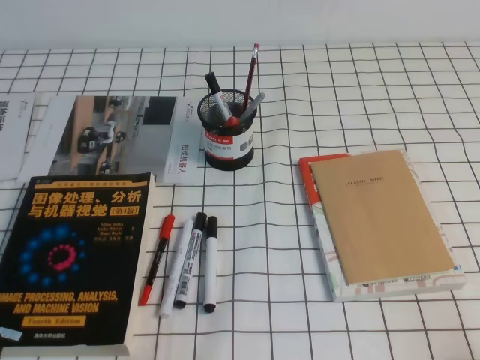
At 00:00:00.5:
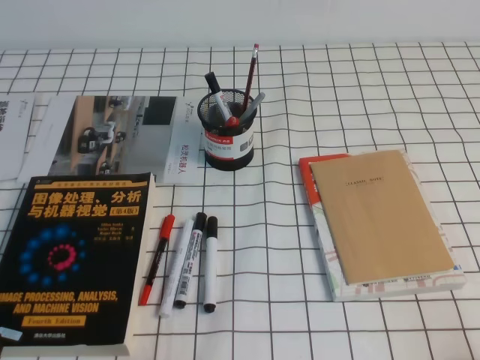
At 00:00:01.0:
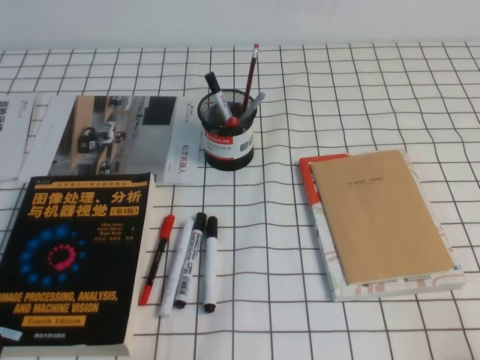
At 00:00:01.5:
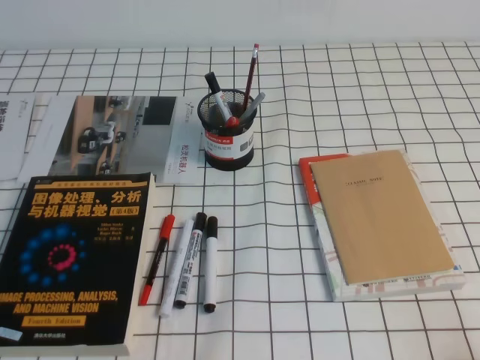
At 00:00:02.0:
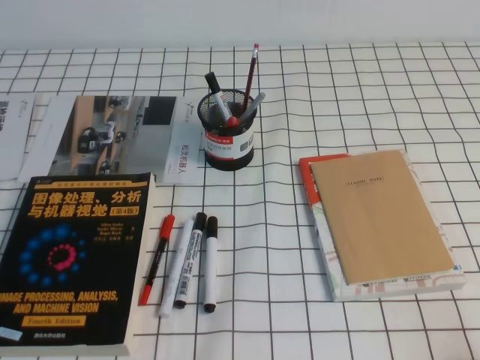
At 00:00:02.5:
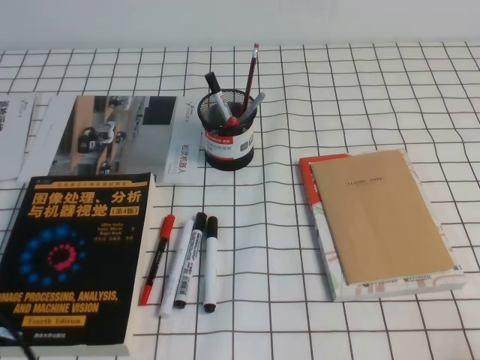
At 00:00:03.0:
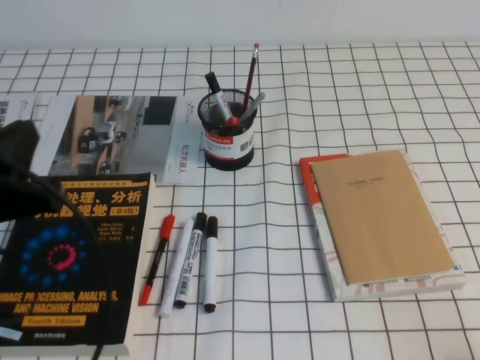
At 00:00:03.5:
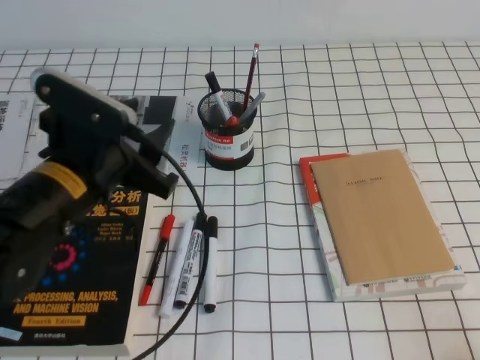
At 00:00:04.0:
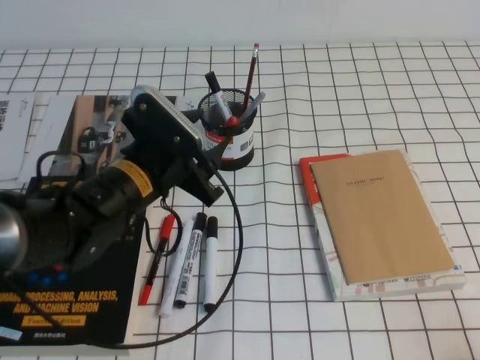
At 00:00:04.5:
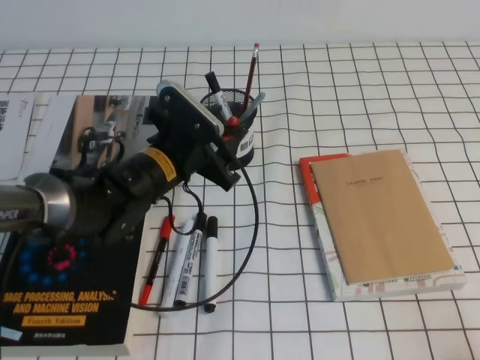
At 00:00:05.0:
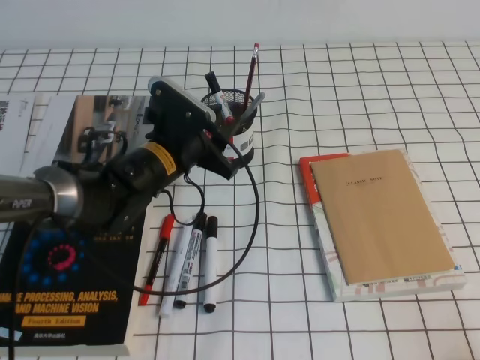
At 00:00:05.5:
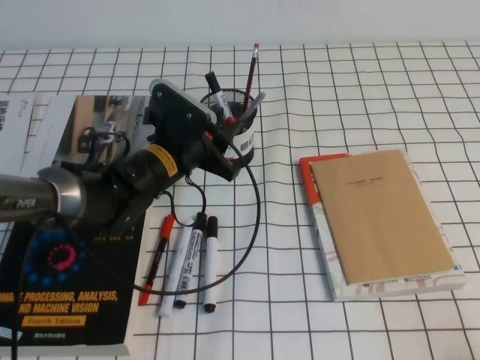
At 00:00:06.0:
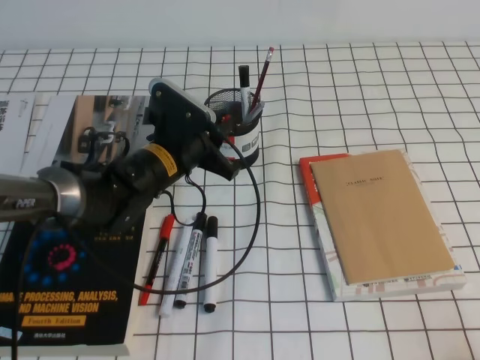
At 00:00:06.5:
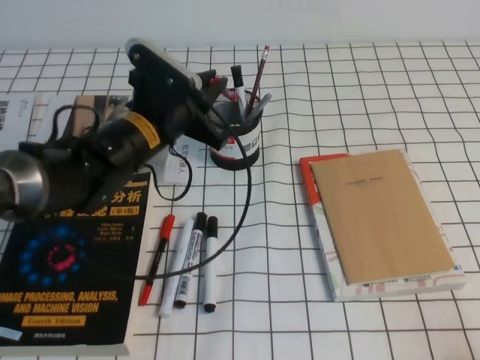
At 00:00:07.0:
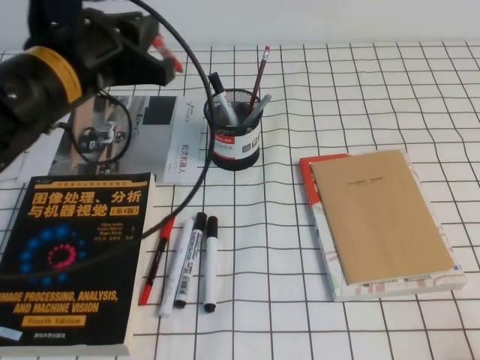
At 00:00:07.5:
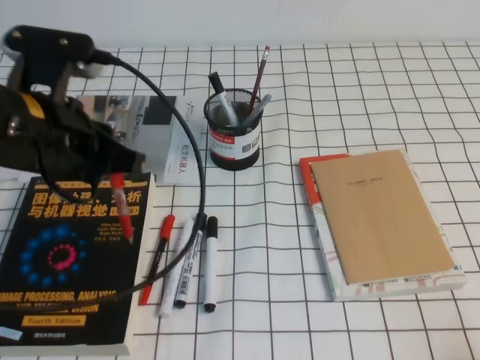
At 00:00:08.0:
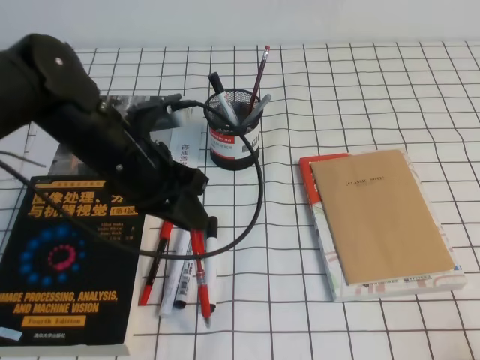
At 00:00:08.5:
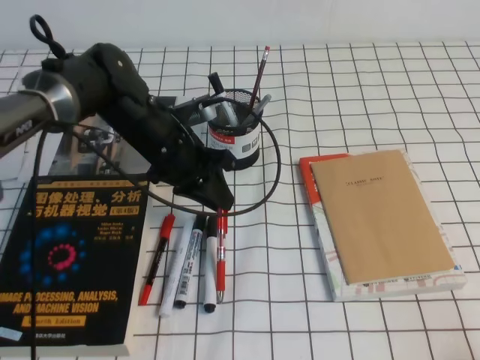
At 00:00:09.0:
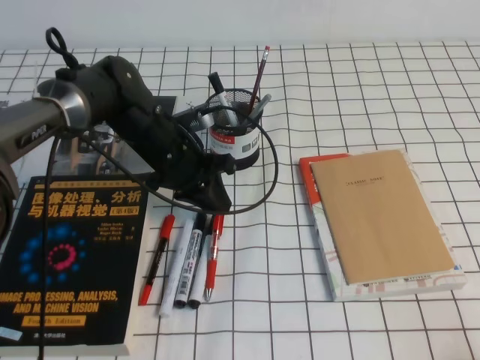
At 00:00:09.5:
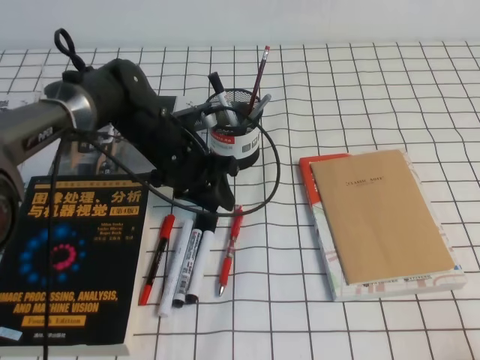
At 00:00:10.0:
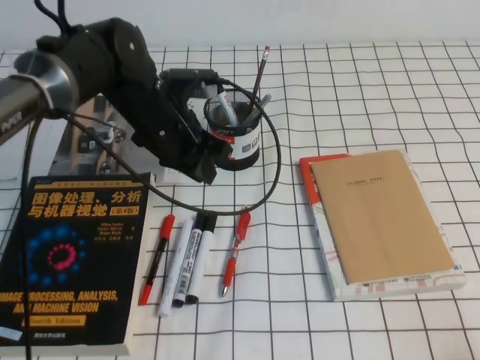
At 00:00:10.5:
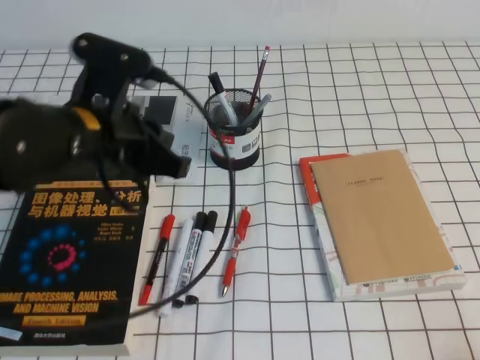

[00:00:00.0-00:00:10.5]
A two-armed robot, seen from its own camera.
00:00:02.0 to 00:00:04.0: The left gripper shifts some 30 cm forward and to the right, and opens.
00:00:04.0 to 00:00:06.5: The left gripper travels forward by roughly 5 cm, and closes.
00:00:06.5 to 00:00:08.5: The left gripper reaches roughly 10 cm upward, then returns.
00:00:08.5 to 00:00:10.5: The left gripper heads upward and backward, covering some 15 cm.

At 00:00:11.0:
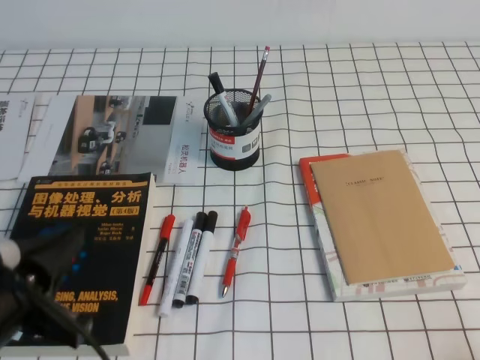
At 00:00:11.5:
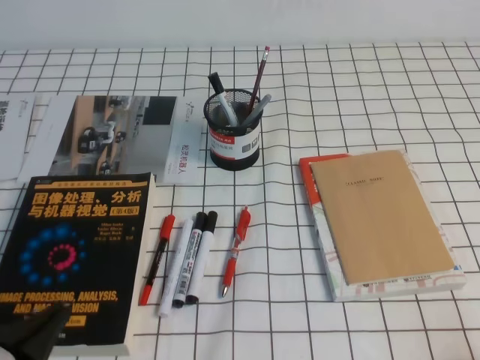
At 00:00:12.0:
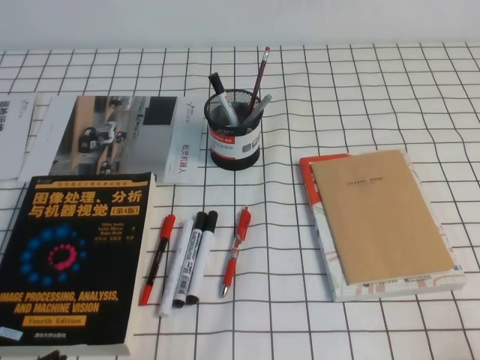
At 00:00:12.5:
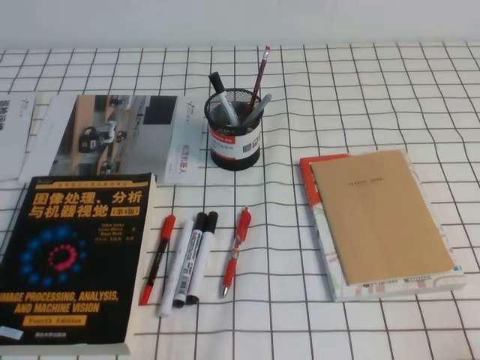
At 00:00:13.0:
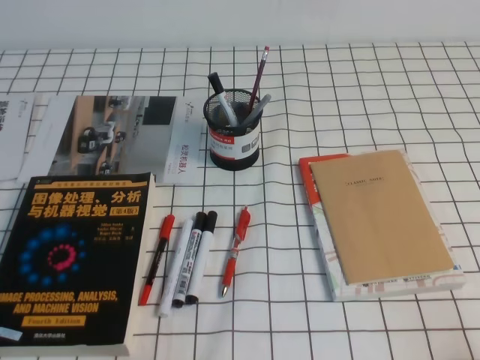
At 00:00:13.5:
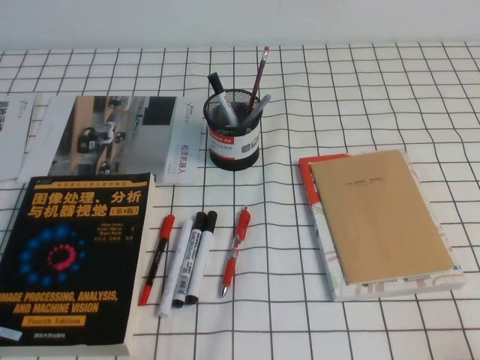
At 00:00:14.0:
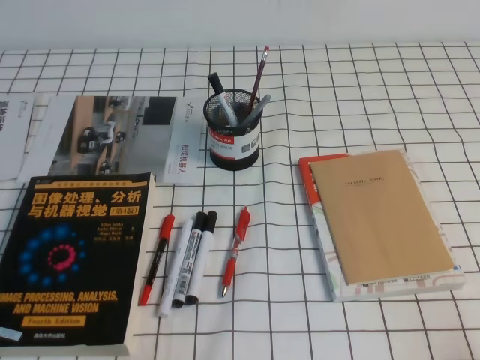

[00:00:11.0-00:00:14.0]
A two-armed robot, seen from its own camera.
Step, 00:00:11.0 to 00:00:14.0: Pick up the pen from the pen holder.
00:00:11.0 to 00:00:12.5: The left gripper moves downward, backward and to the left, about 15 cm.
